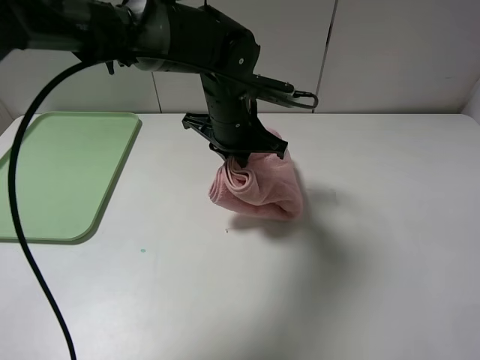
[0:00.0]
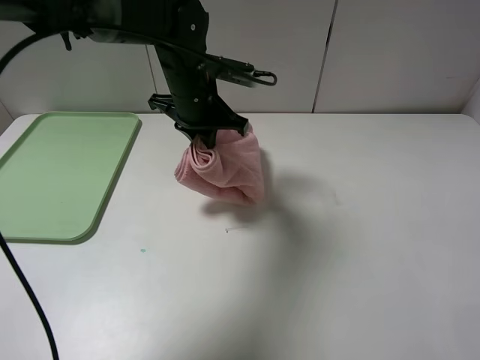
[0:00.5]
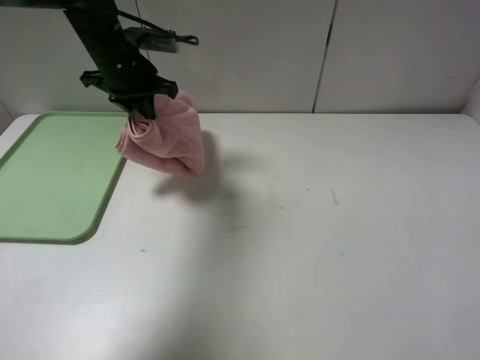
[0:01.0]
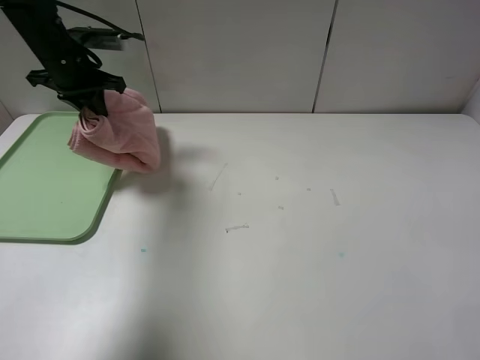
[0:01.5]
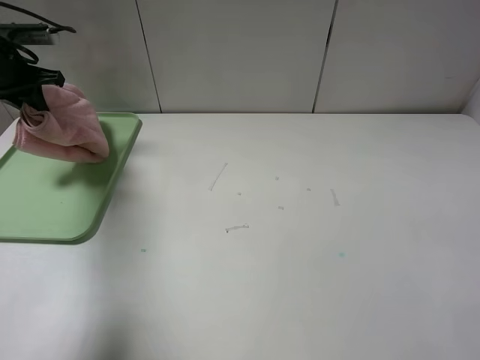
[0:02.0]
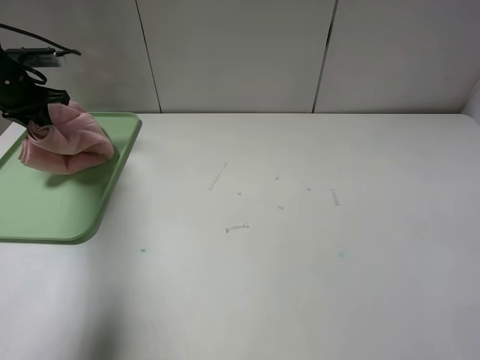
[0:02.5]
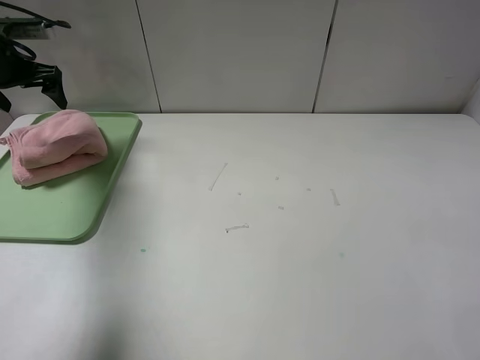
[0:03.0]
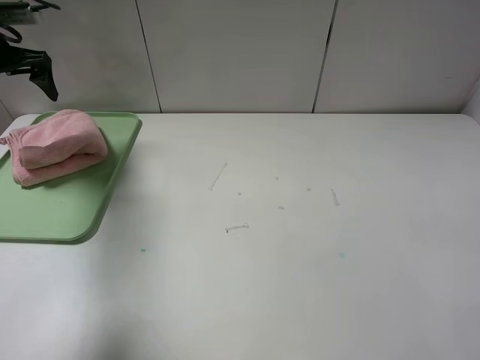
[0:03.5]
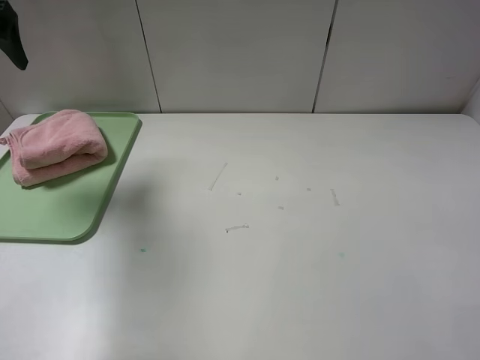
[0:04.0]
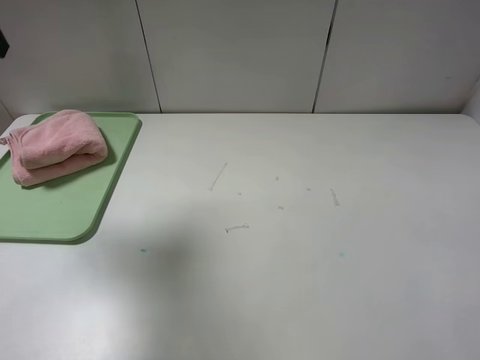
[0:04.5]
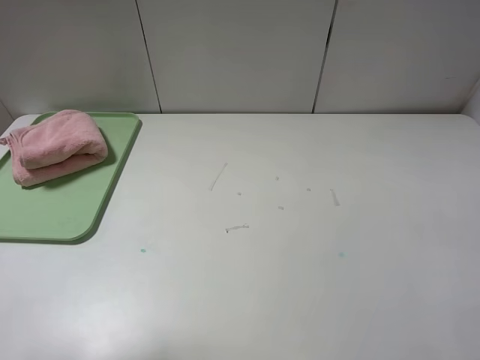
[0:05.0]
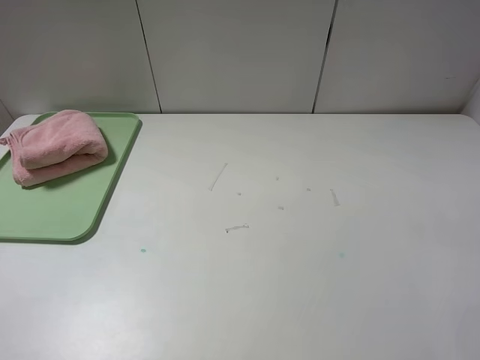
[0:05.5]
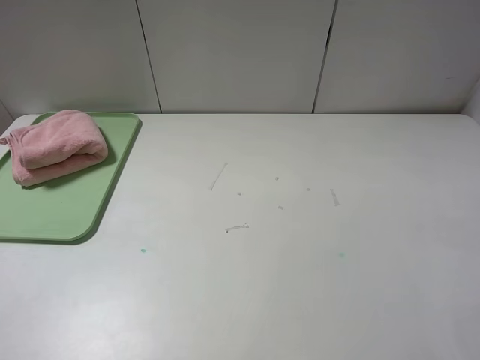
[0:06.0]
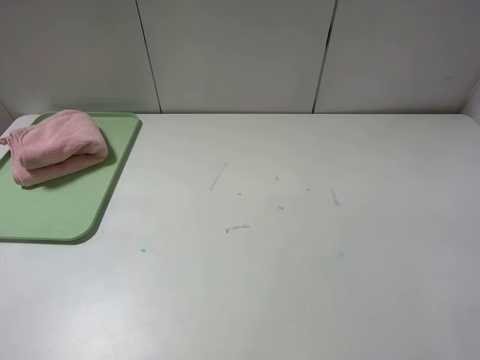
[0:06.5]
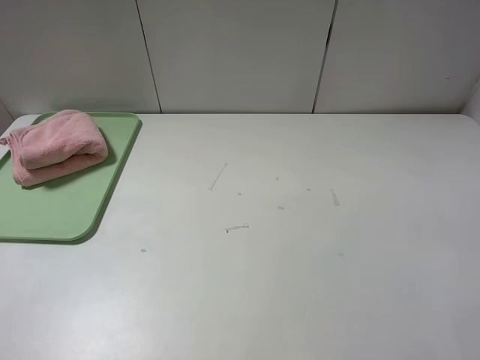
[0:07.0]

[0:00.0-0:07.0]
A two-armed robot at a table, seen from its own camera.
Step, 0:00.0 to 0:03.0: Place the folded pink towel on the tray with the left gripper.
0:00.0 to 0:02.0: The left gripper is displaced to the left by roughly 40 cm.
0:02.0 to 0:03.5: The left gripper opens up.
0:03.5 to 0:05.0: The left gripper goes about 35 cm backward.
